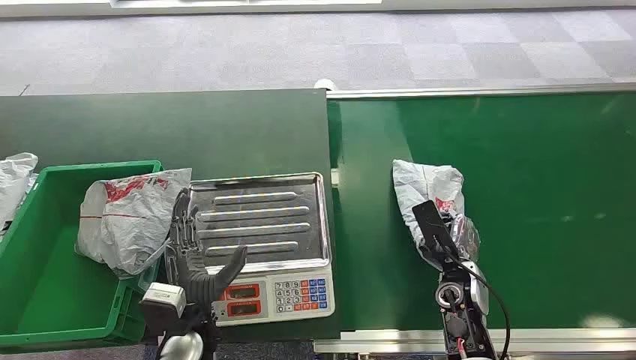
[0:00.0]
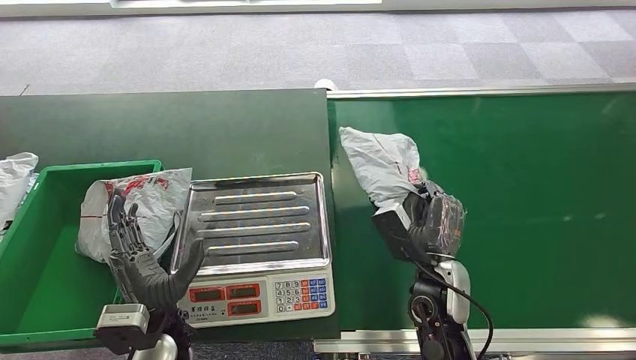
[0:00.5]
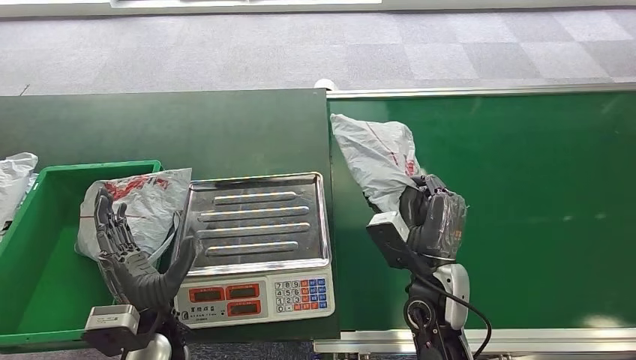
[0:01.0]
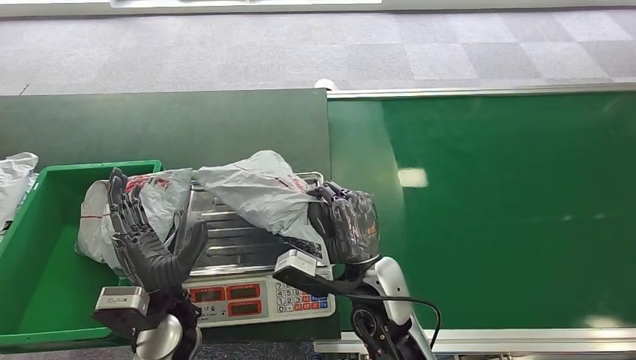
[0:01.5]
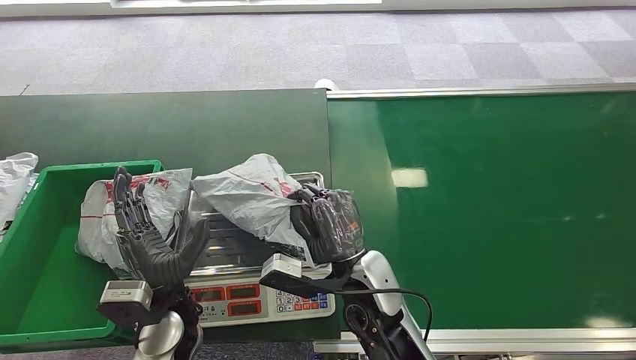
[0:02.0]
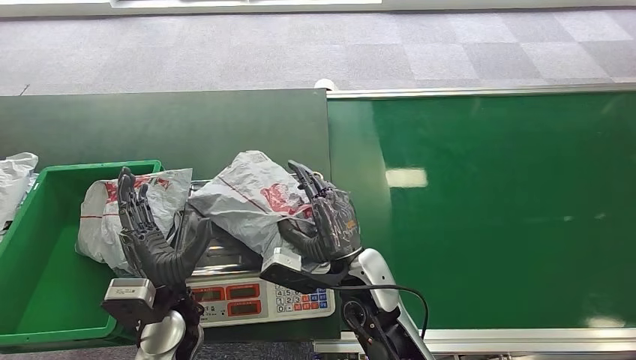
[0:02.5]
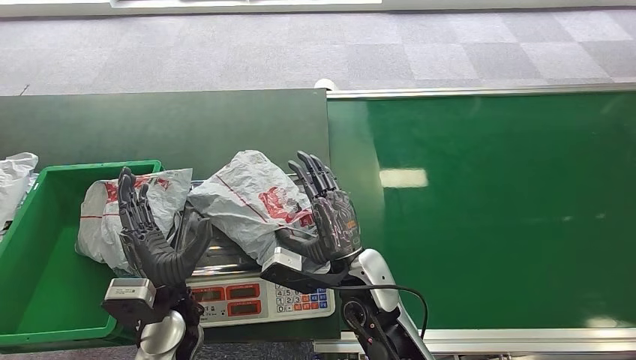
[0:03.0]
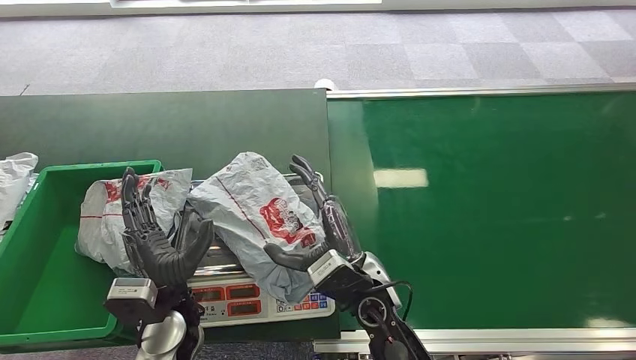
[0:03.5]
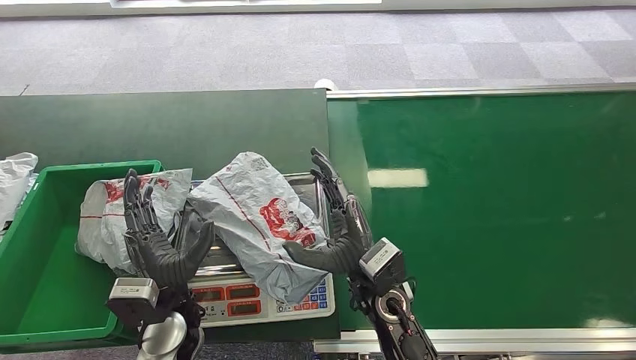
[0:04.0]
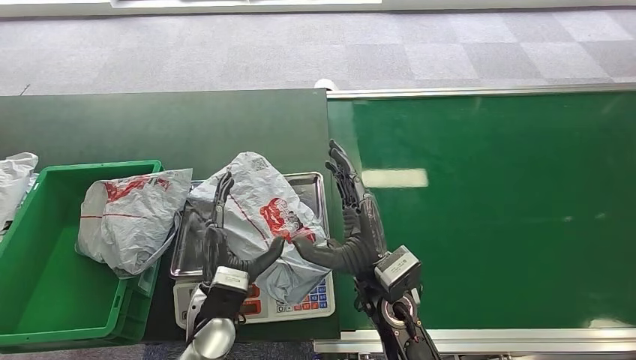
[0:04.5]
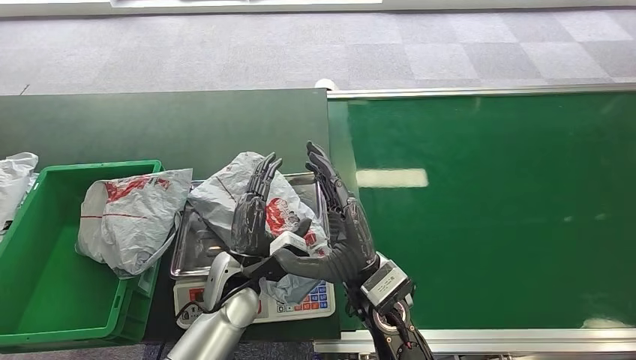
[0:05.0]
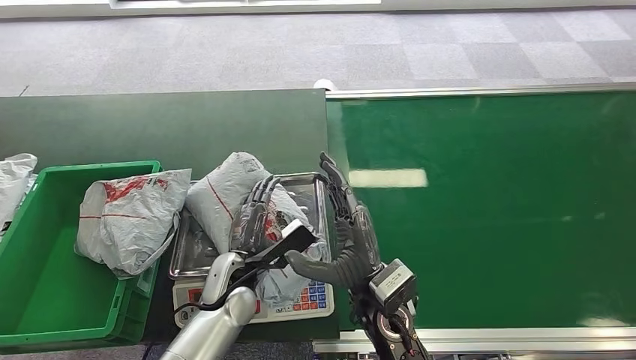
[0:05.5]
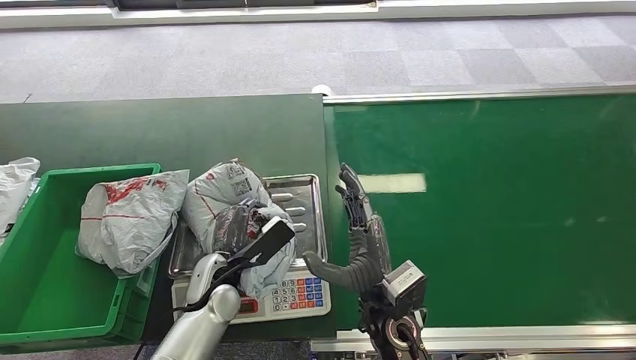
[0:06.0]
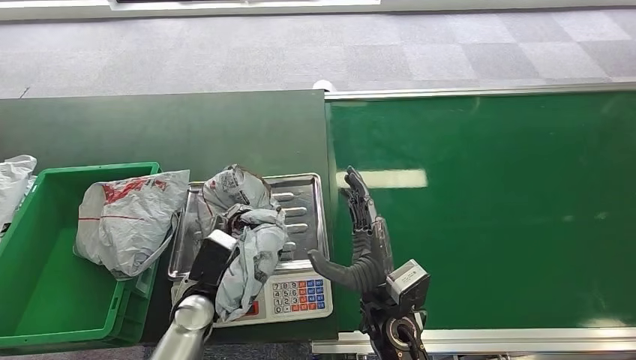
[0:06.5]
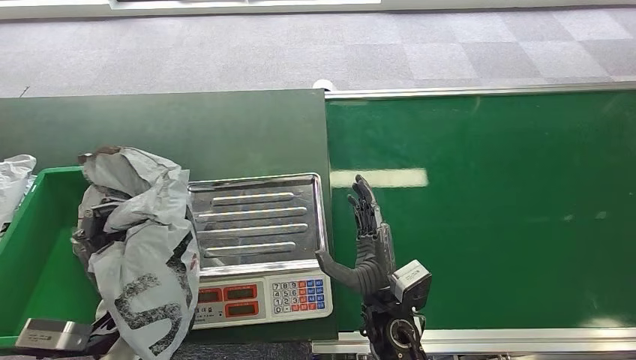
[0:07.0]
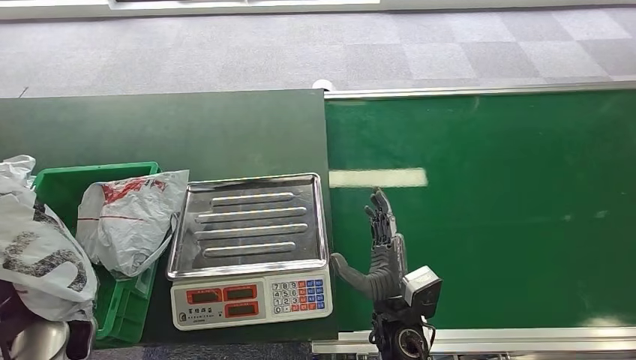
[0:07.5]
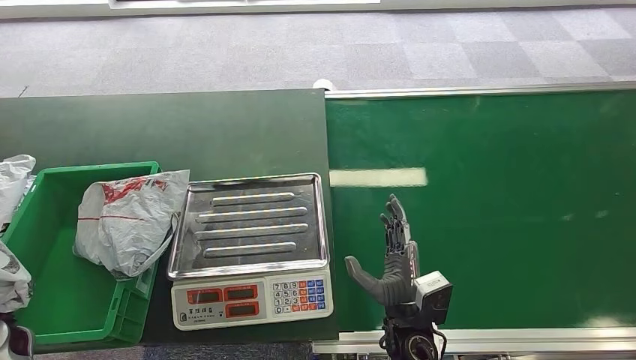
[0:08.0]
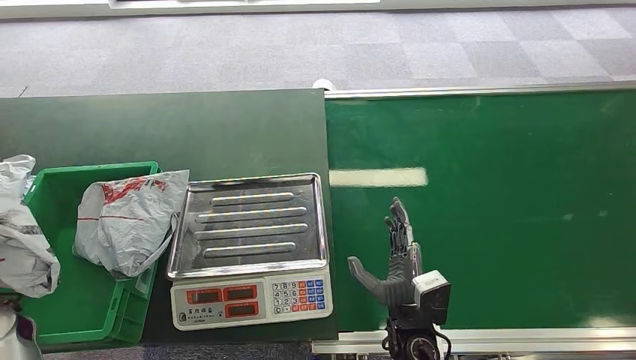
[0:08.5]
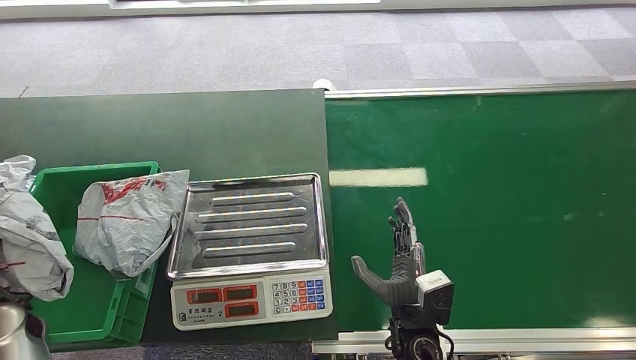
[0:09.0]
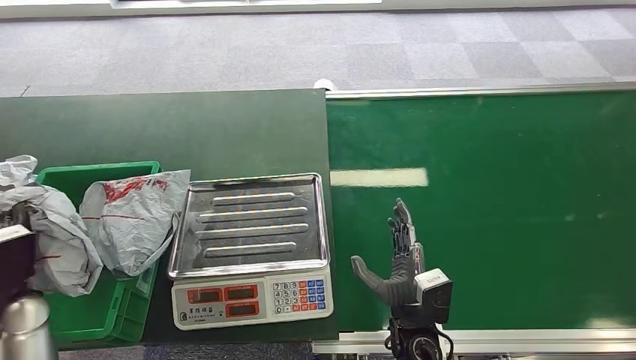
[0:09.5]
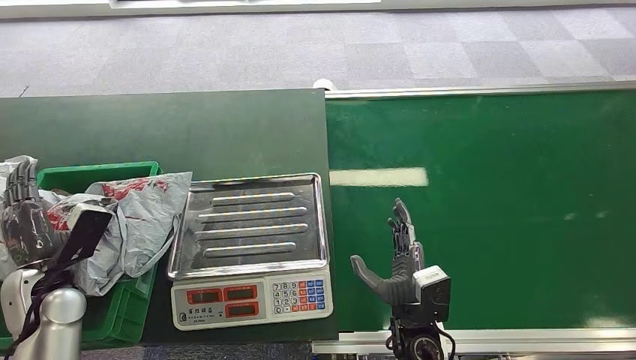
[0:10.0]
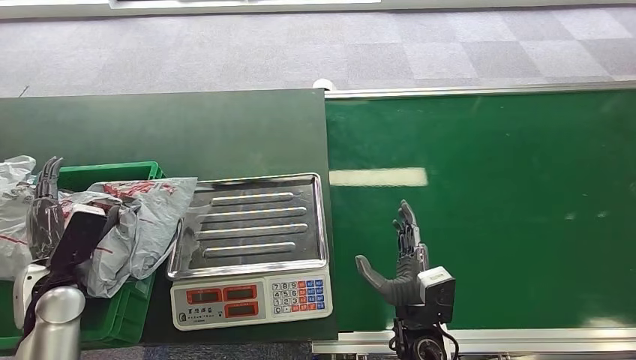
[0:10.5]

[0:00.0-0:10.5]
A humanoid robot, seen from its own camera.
Step, 0:00.0 to 0:00.5: Pick up the package from the conveyor belt.
Step, 0:01.5 to 0:02.5: Place the package onto the inbound machine.
Step, 0:06.5 to 0:07.0: Pick up the package from the inbound machine.
Step, 0:08.5 to 0:10.5: Place the package into the parcel locker.
0:04.0 to 0:06.5: The left hand travels to the right and back again, roughly 10 cm each way.
0:06.5 to 0:08.5: The right hand moves downward, roughly 5 cm, while the left hand travels to the left by roughly 30 cm.
0:08.5 to 0:10.5: The left hand is displaced to the right by roughly 5 cm.

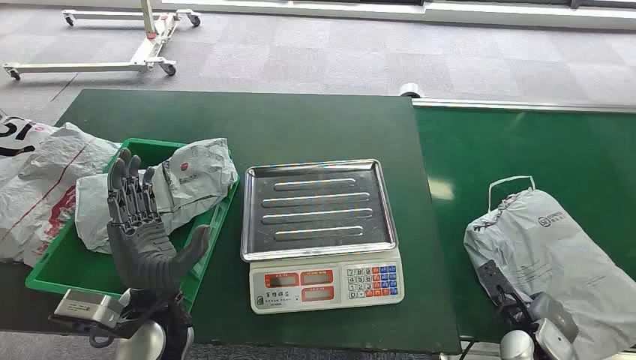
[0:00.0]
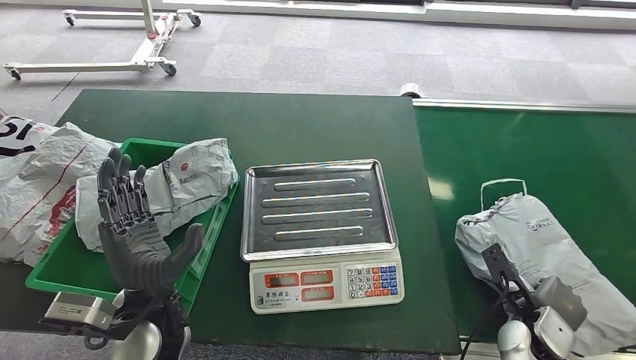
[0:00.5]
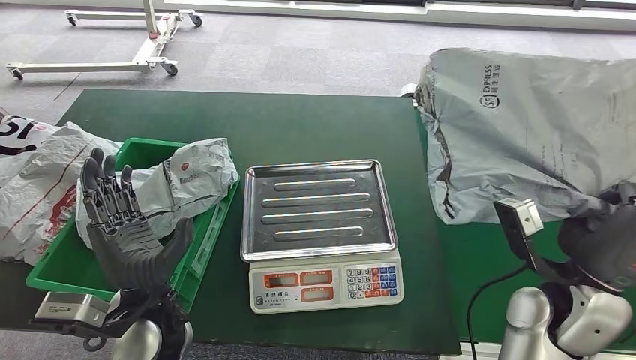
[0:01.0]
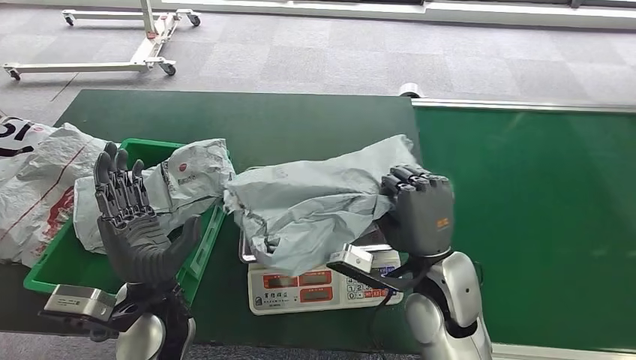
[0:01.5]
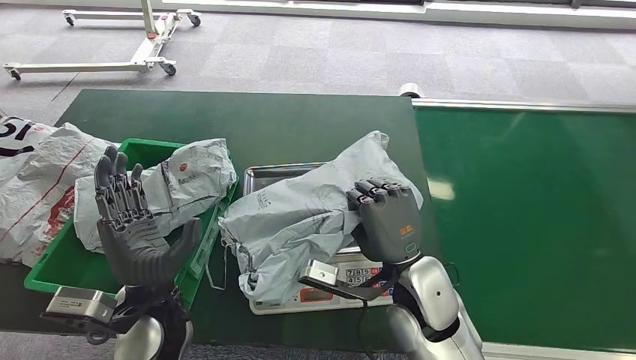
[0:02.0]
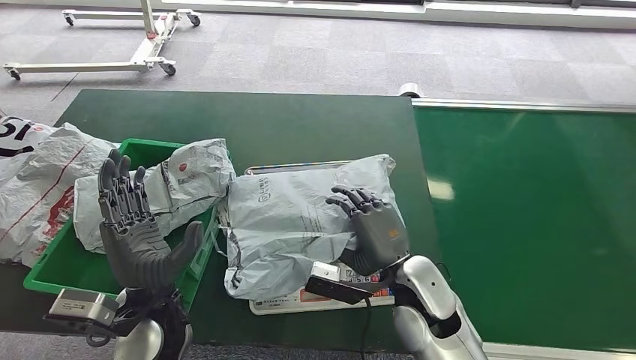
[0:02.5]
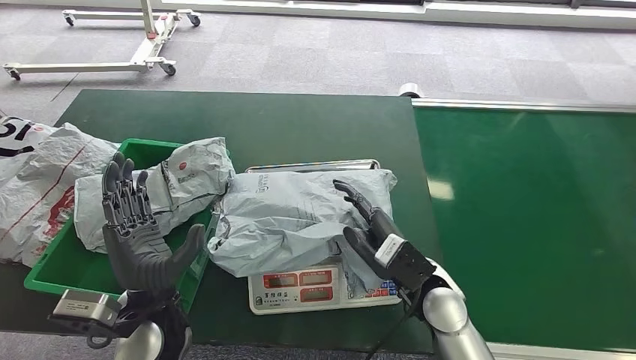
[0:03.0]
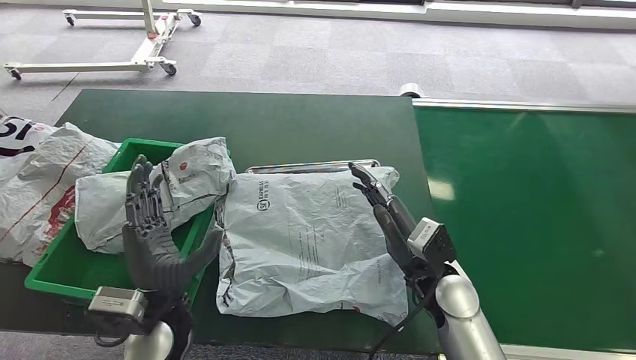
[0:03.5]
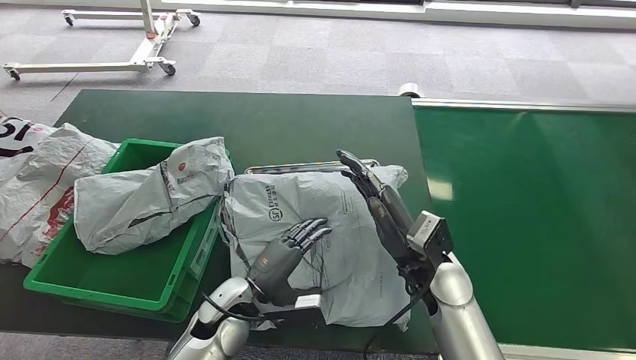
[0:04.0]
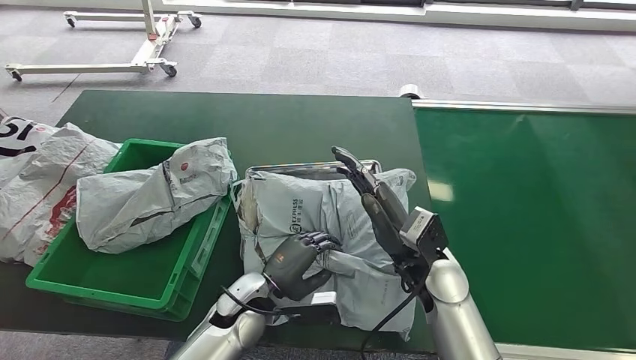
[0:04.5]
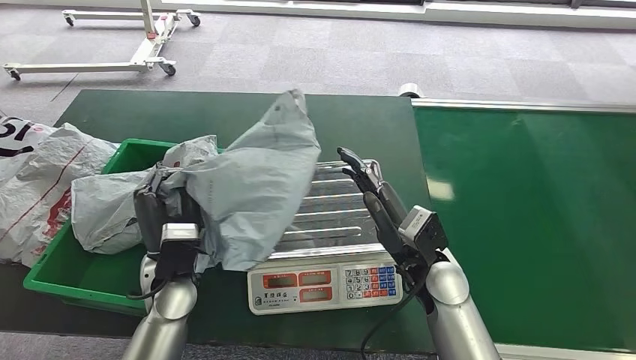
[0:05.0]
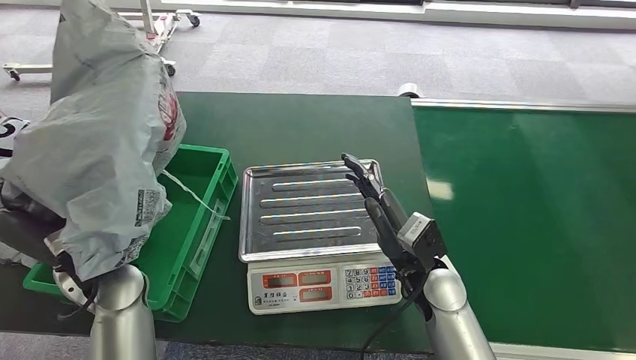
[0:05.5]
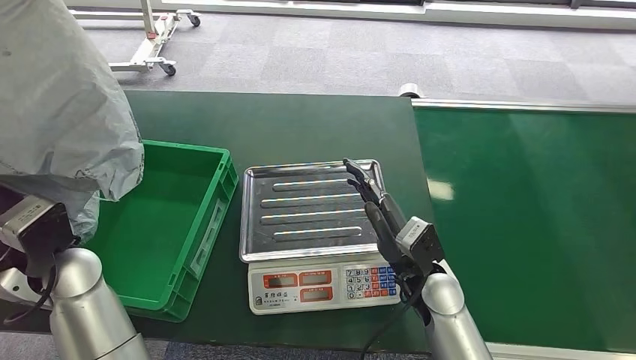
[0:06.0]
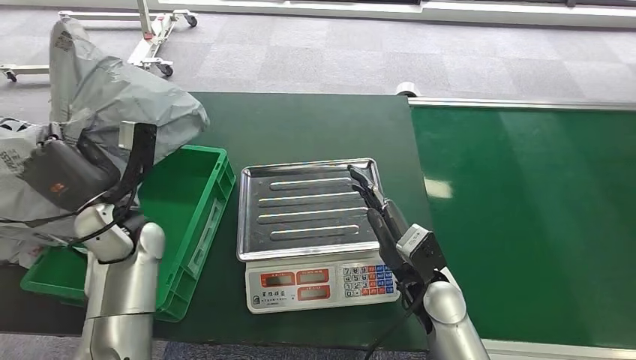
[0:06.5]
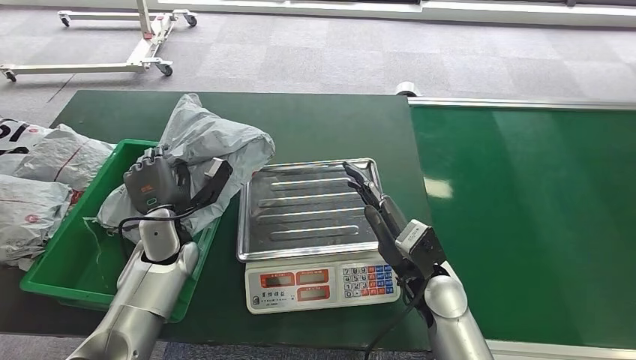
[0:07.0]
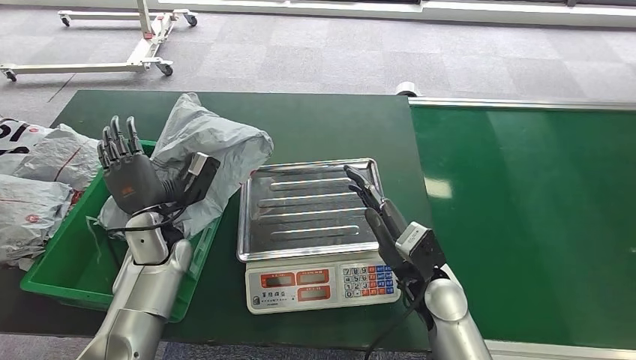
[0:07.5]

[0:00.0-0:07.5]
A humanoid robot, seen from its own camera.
Step, 0:00.0 to 0:01.0: Pick up the package from the conveyor belt.
Step, 0:01.5 to 0:03.0: Place the package onto the inbound machine.
Step, 0:03.5 to 0:05.5: Pick up the package from the inbound machine.
Step, 0:06.0 to 0:07.5: Place the package into the parcel locker.
0:02.0 to 0:04.0: The left hand heads downward and to the right, covering approximately 10 cm. The right hand changes place by about 5 cm.
